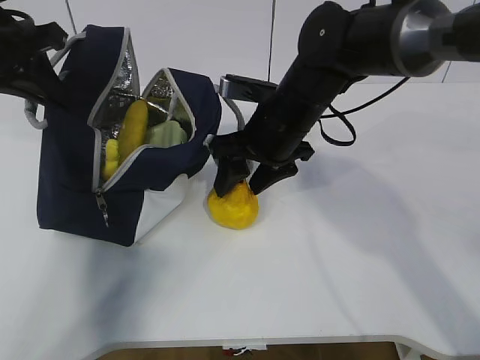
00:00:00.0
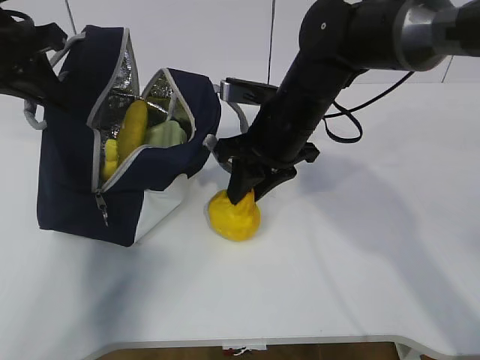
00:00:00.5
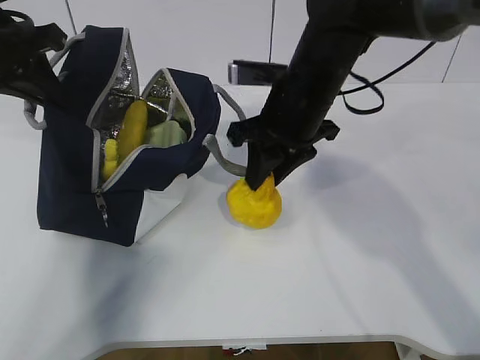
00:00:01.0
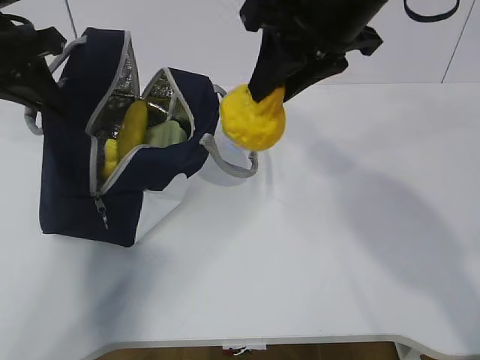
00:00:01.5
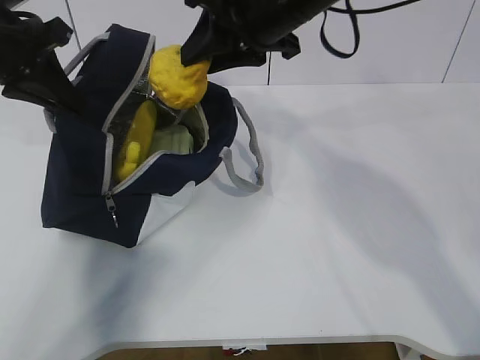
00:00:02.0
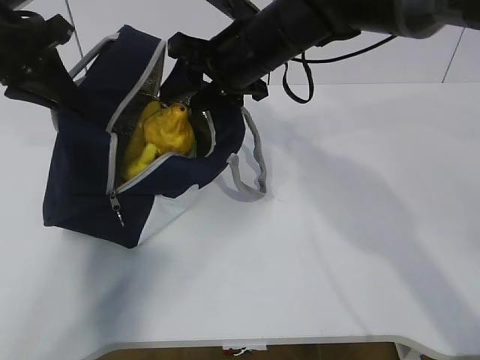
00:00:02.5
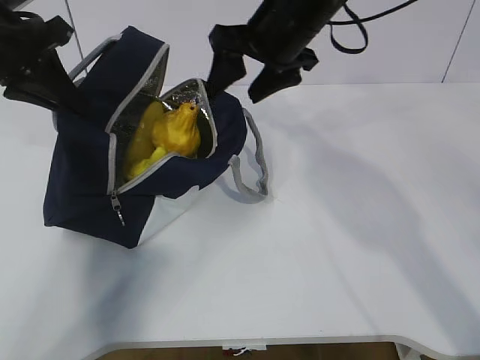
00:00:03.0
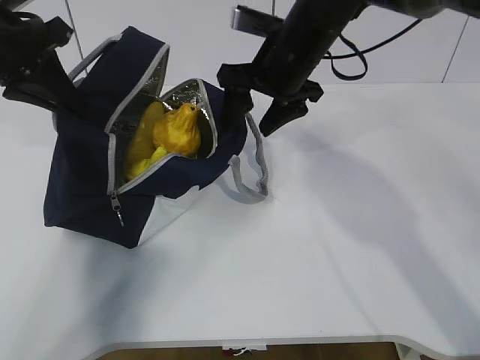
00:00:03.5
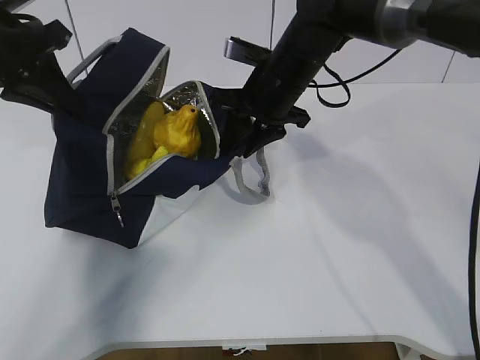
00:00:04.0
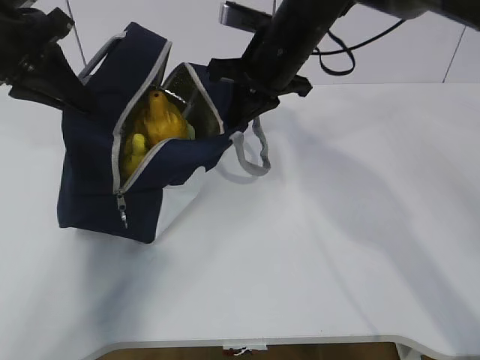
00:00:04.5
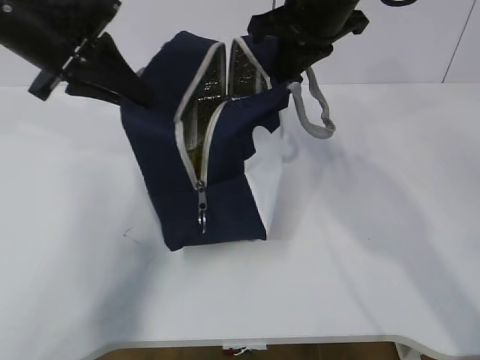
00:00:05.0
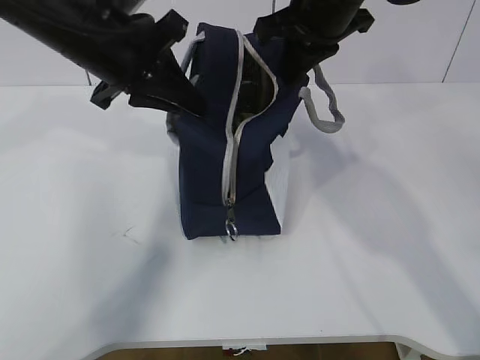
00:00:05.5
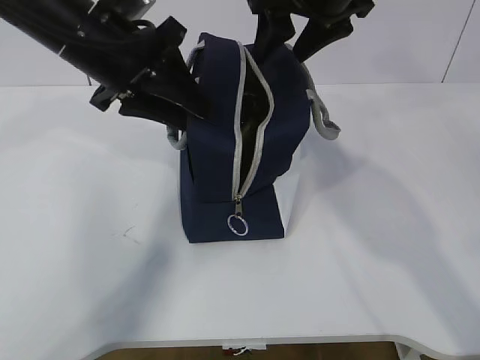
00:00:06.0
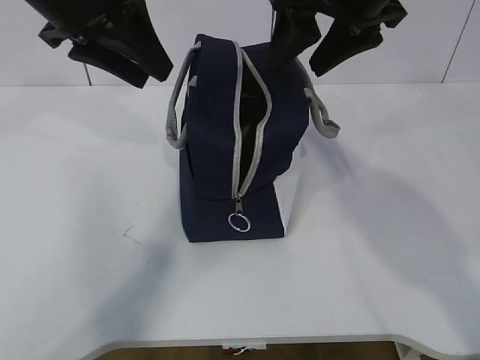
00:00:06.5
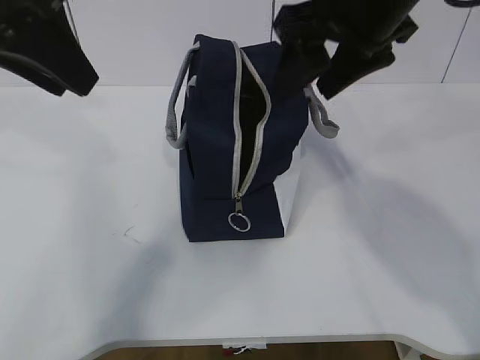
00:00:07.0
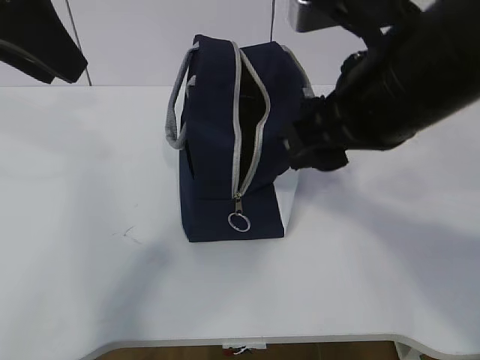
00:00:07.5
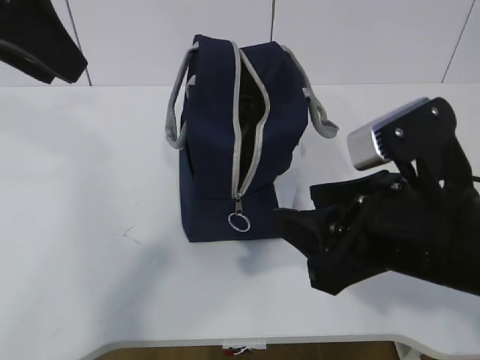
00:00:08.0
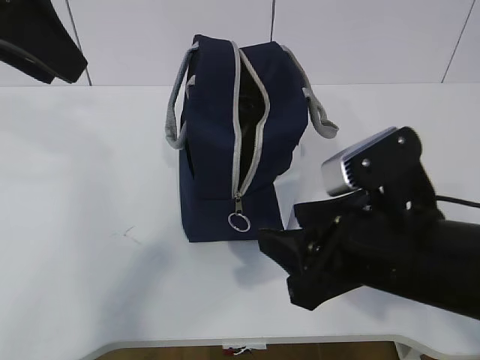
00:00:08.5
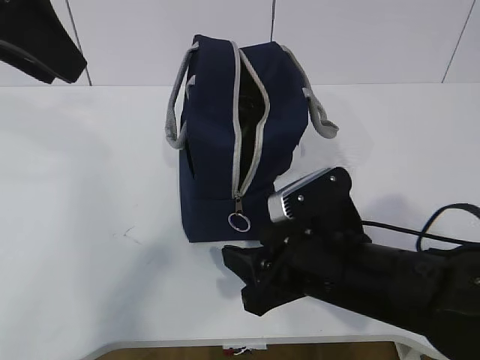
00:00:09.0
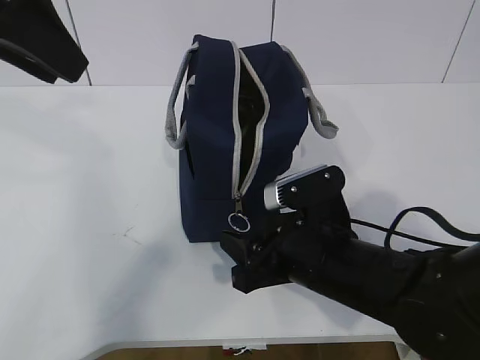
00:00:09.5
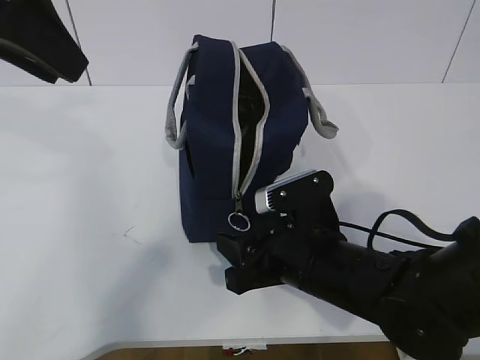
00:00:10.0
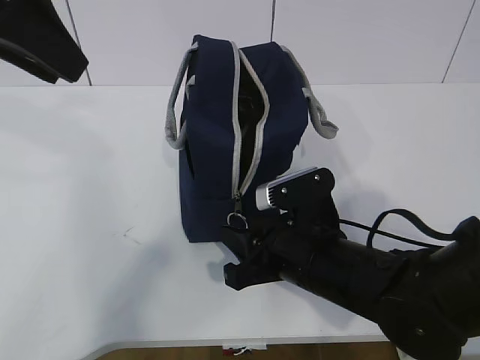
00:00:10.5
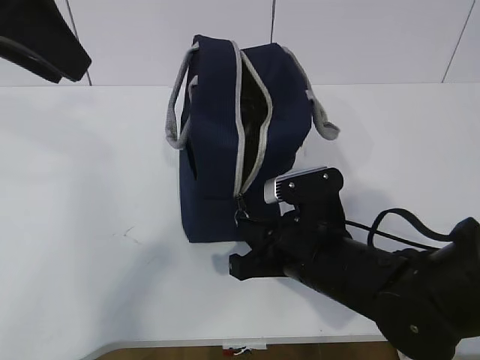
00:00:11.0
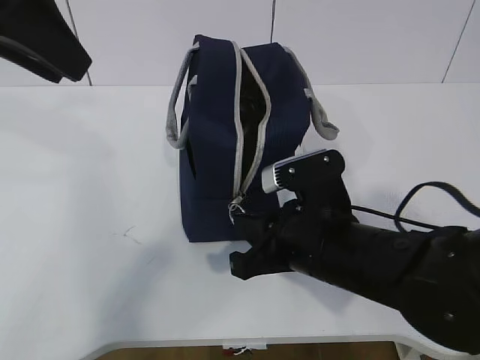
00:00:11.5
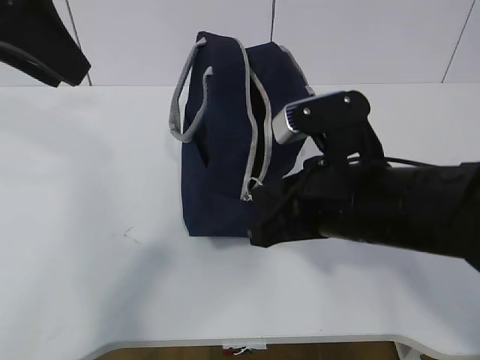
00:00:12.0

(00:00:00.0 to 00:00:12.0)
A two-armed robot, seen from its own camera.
Step, 00:00:00.5 - 00:00:09.0: Grab the lunch bag with your left hand.
00:00:00.0 - 00:00:02.0: The right gripper moves upward, about 15 cm, and closes.
00:00:02.0 - 00:00:04.0: The right gripper travels downward and forward by approximately 10 cm, and opens and closes again.
00:00:04.0 - 00:00:06.0: The right gripper is displaced upward by some 15 cm, and closes, then opens again. The left gripper shifts roughly 10 cm to the right, and opens up.
00:00:06.0 - 00:00:08.0: The left gripper is displaced upward, backward and to the left by roughly 15 cm. Meanwhile the right gripper heads backward and downward, covering approximately 25 cm.
00:00:08.0 - 00:00:10.0: The right gripper is displaced downward and forward by about 15 cm.
00:00:10.0 - 00:00:12.0: The right gripper moves upward, about 10 cm, and closes.

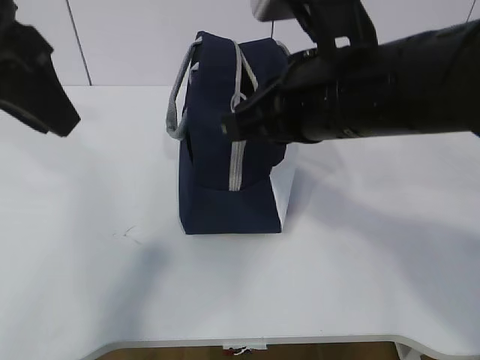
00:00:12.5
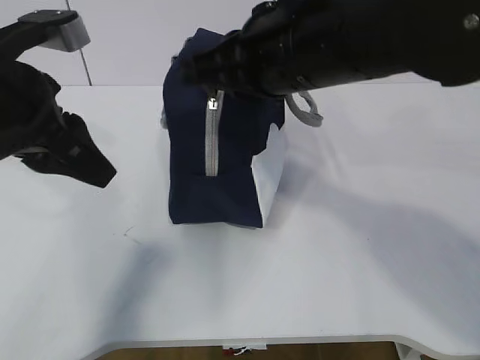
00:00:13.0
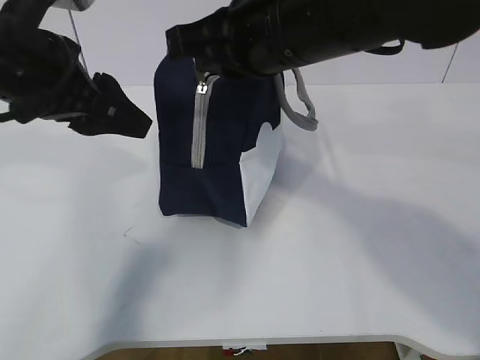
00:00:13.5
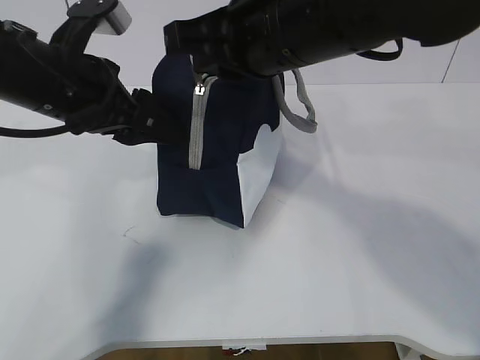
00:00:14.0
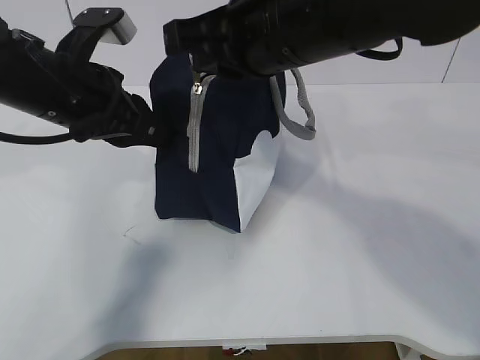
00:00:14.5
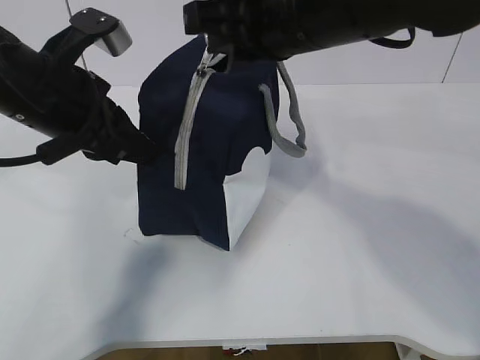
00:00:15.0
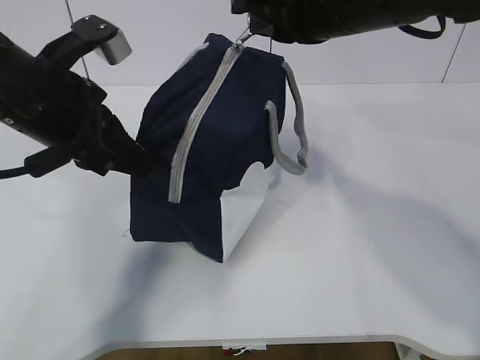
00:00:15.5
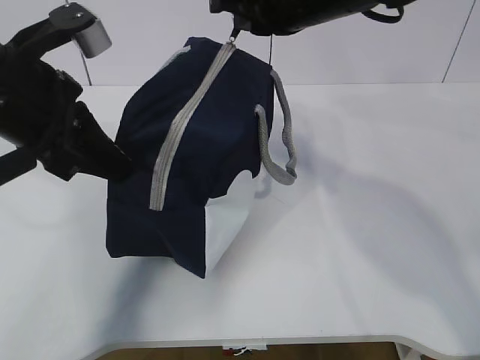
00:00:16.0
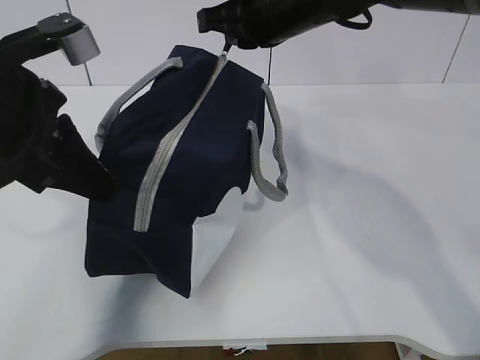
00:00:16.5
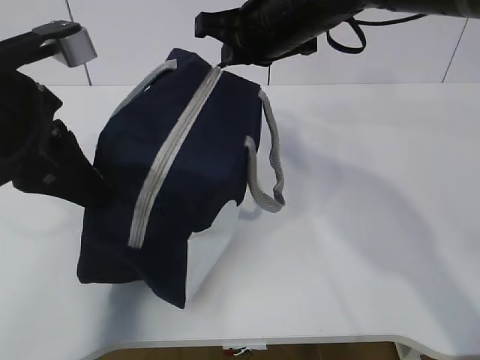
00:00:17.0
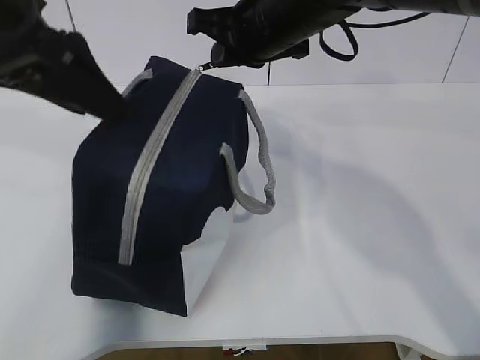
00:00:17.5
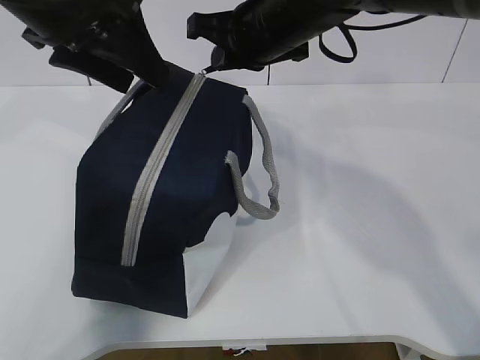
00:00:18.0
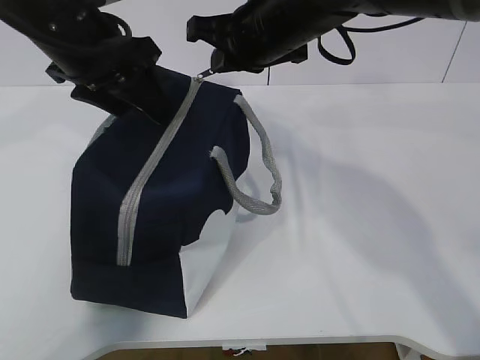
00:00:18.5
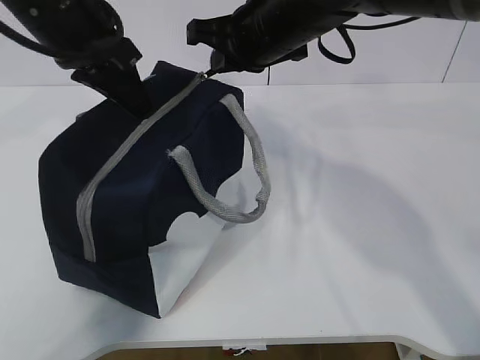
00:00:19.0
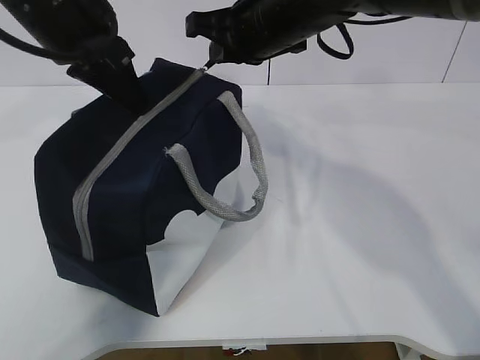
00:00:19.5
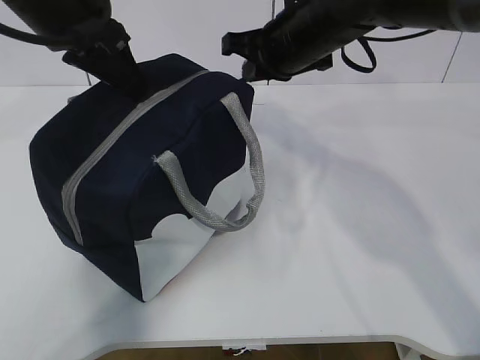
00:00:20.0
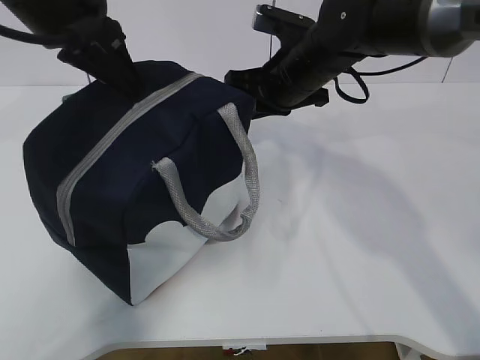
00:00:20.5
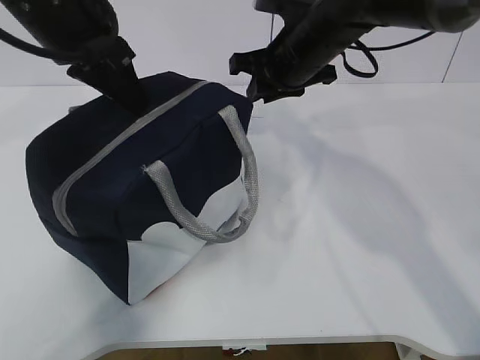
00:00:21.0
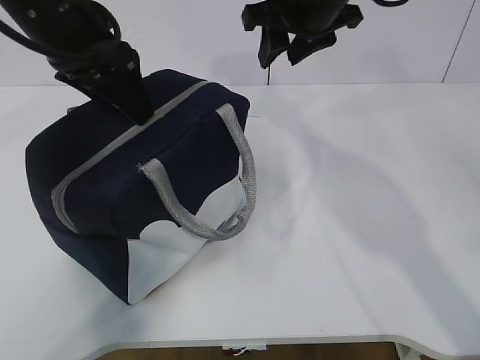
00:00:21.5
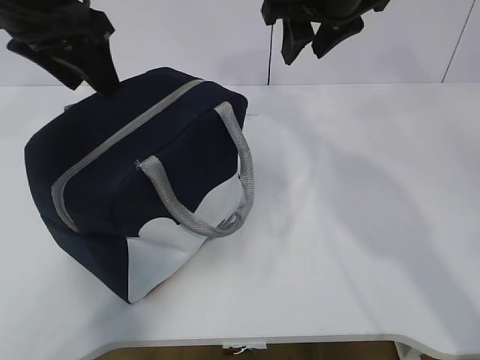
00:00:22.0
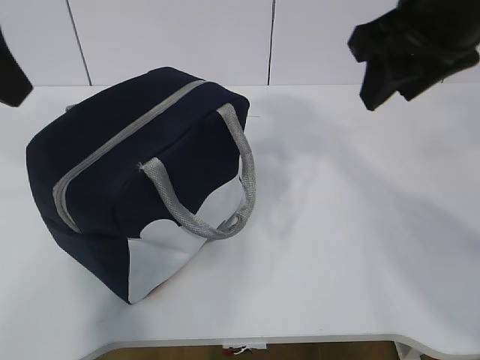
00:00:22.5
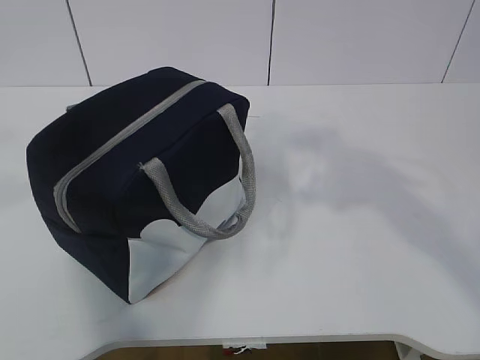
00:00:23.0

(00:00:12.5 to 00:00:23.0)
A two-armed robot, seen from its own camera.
00:00:12.5 - 00:00:14.5: The left gripper shifts some 10 cm downward and forward, and closes up, while the right gripper ends up roughly 5 cm from where it was.
00:00:14.5 - 00:00:16.5: The left gripper is displaced backward by approximately 5 cm. The right gripper moves forward, roughly 10 cm.
00:00:16.5 - 00:00:19.0: The left gripper travels forward by some 10 cm, and opens and closes again.
00:00:19.0 - 00:00:21.0: The right gripper moves roughly 5 cm, and opens.
00:00:21.0 - 00:00:23.0: The right gripper goes about 35 cm backward, upward and to the right, while the left gripper moves backward, to the left and upward, approximately 25 cm, and opens up.

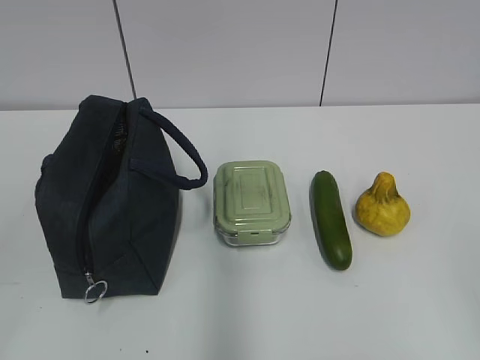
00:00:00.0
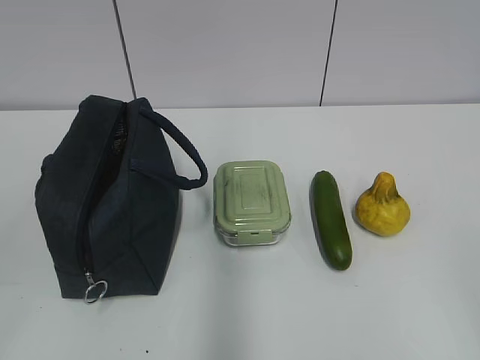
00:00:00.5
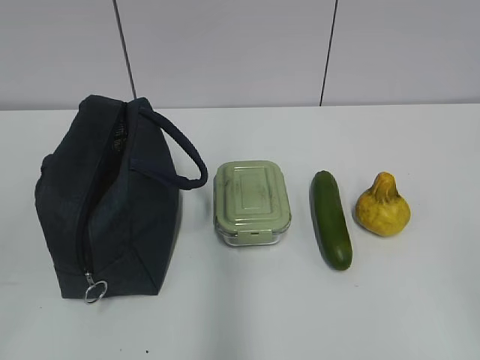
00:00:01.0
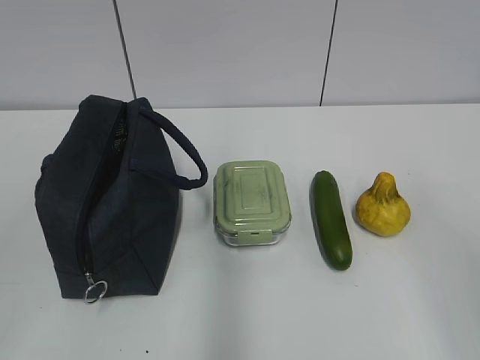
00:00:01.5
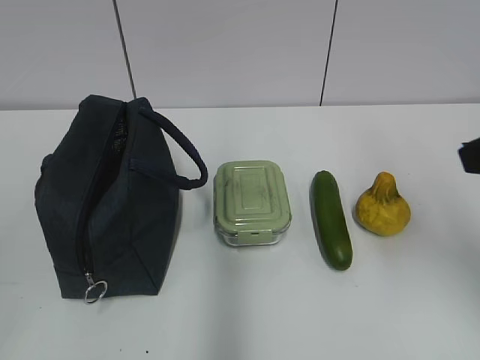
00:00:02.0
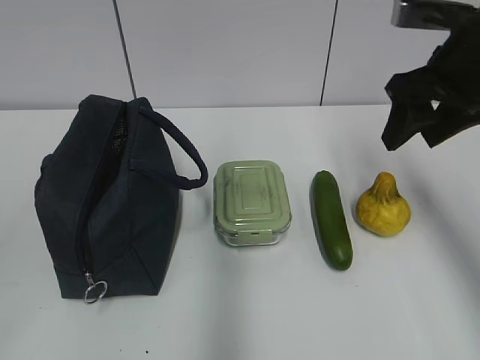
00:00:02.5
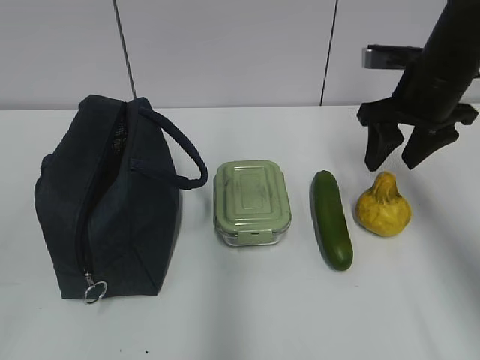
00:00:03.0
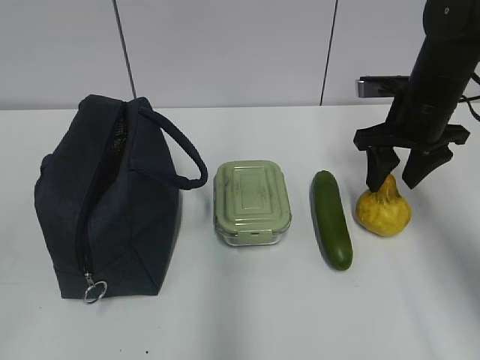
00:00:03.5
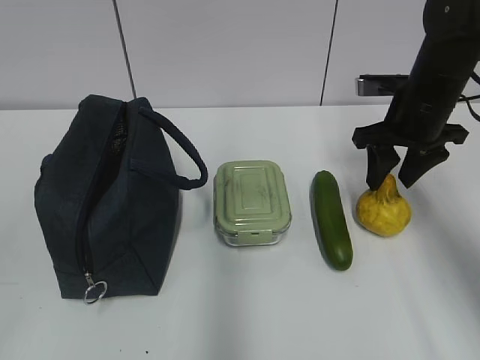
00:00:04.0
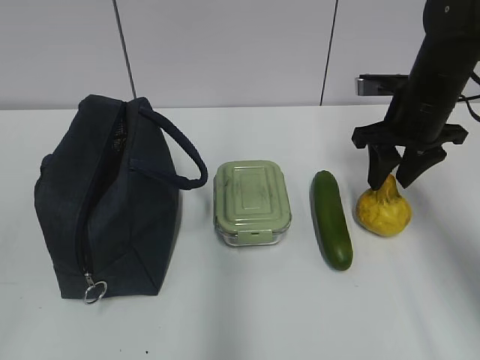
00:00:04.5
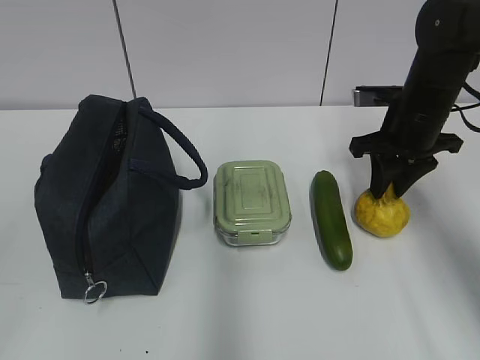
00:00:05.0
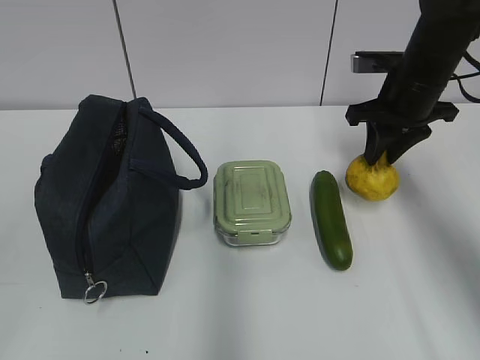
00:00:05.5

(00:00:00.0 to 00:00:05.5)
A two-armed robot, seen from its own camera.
00:00:02.0 - 00:00:03.5: The right gripper shifts approximately 25 cm forward and downward.
00:00:03.5 - 00:00:05.5: The right gripper closes up.
